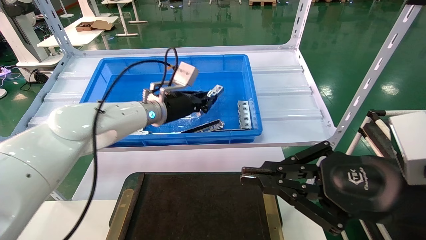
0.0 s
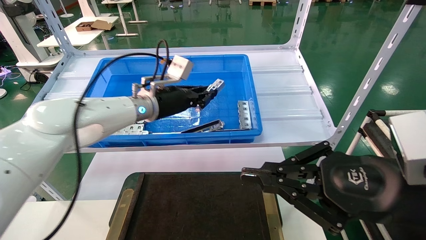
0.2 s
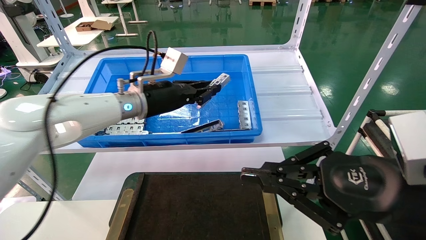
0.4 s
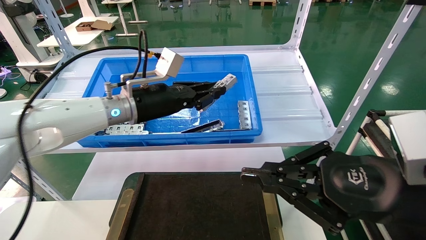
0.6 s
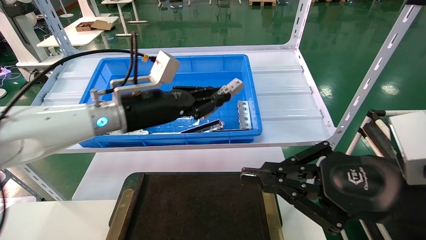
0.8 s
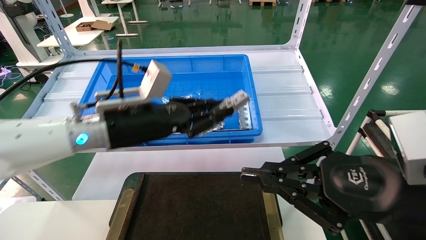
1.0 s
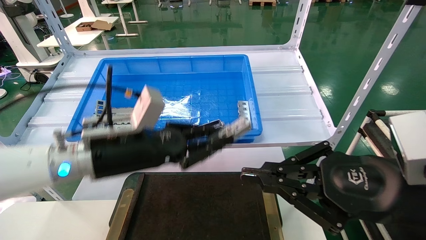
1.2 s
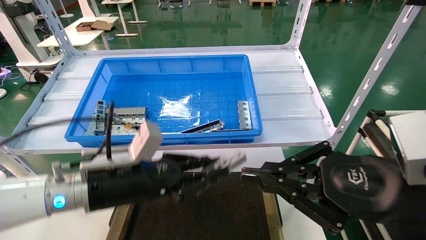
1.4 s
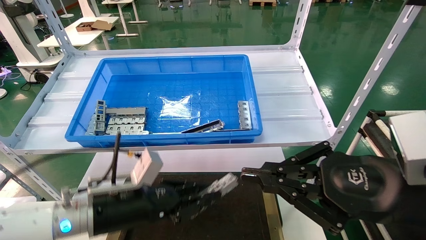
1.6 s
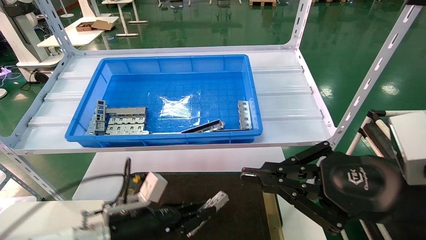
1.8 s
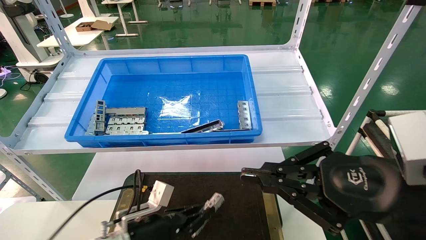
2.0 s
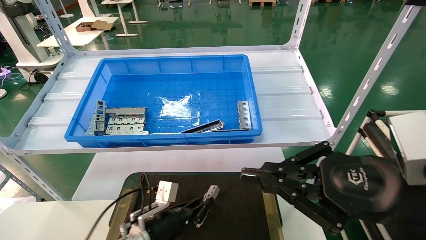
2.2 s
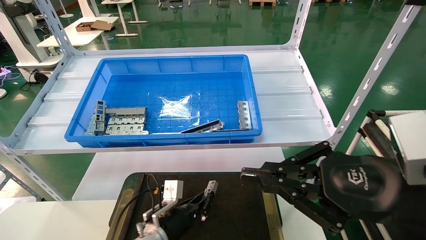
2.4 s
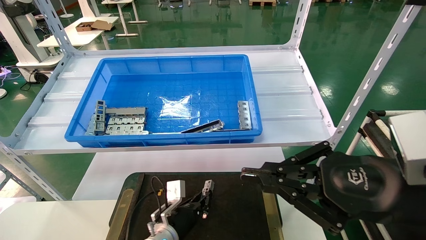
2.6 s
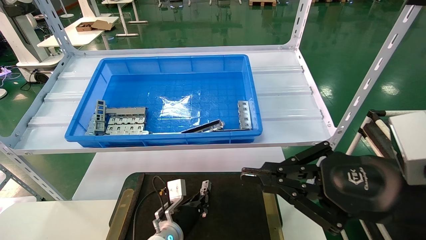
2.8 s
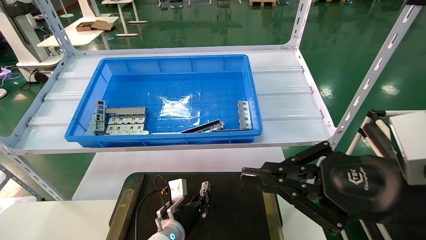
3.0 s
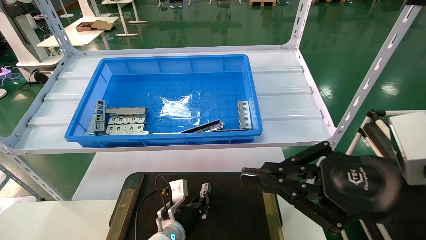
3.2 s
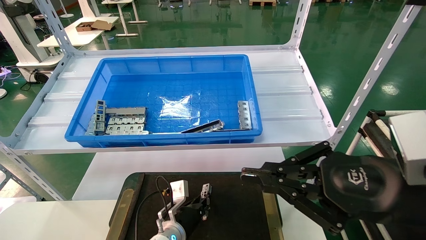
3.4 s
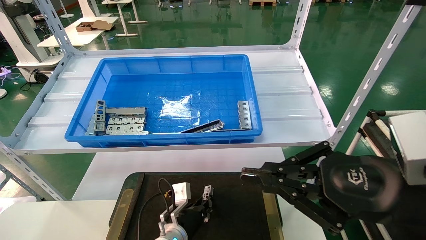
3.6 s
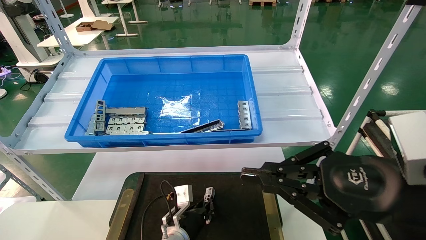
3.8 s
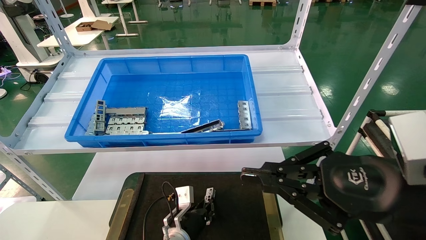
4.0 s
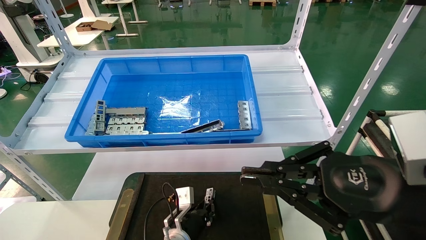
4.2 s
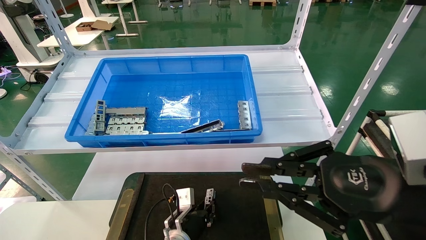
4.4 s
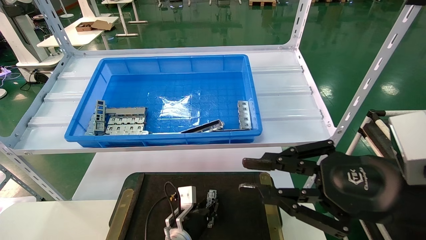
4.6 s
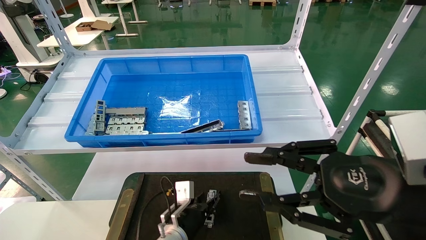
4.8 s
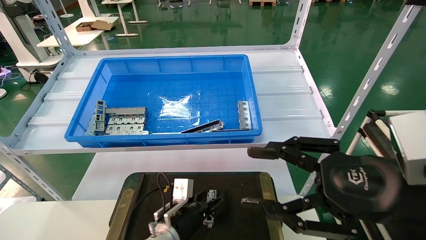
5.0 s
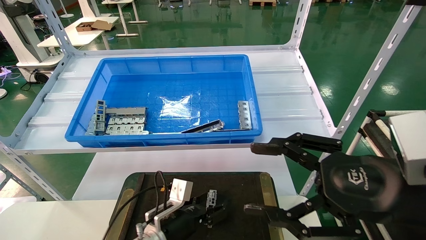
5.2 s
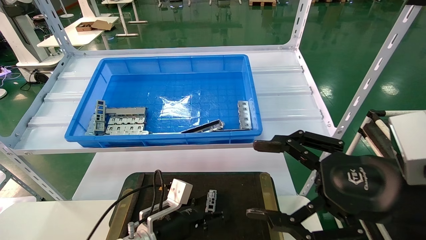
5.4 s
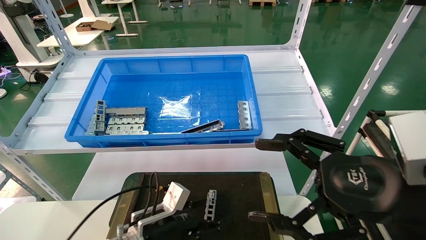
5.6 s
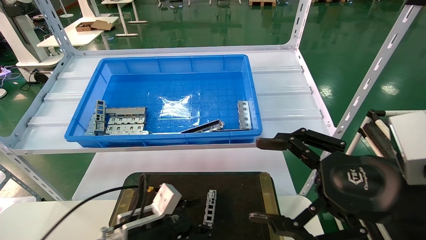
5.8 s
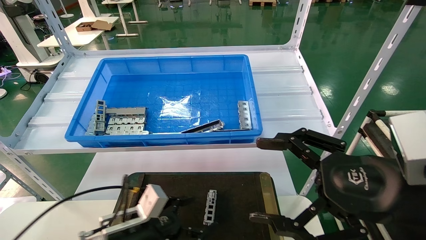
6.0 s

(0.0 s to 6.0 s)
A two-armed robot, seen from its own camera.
Task of the whole recording: Grasp the part with one hand and place it on the black container.
Step, 0.0 s - 4.2 s: Place the front USB bracket into the box.
0.0 s - 1.6 s: The left gripper is displaced backward and downward by some 25 cm.
1.6 s - 3.0 s: The left gripper goes roughly 20 cm downward, forward and to the right.
3.0 s - 4.4 s: There are only small adjustments of the grippers.
4.4 s - 6.0 s: The right gripper opens up. Meanwhile the left gripper goes roughly 20 cm to the left, upward and backward, and opens its fingers.

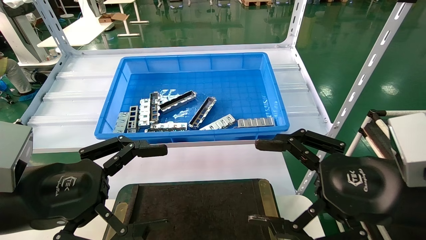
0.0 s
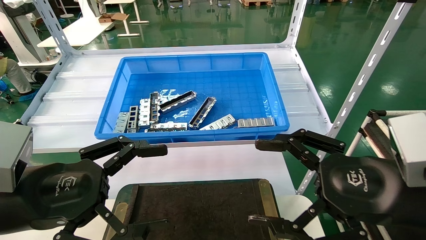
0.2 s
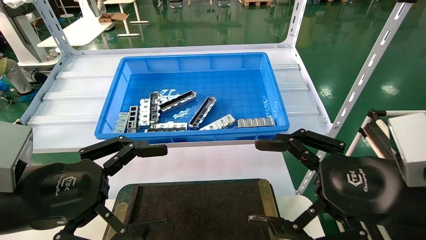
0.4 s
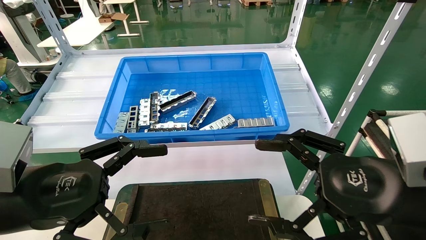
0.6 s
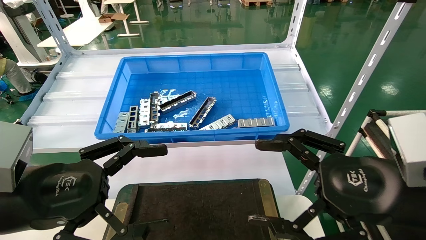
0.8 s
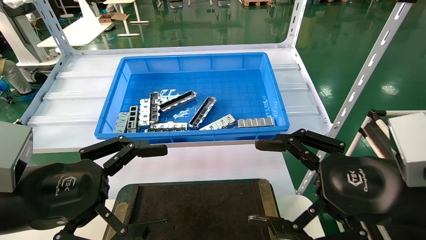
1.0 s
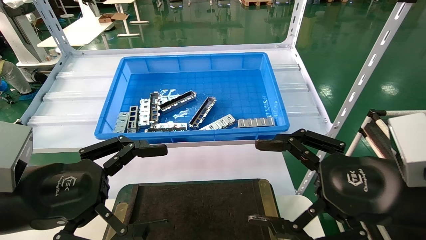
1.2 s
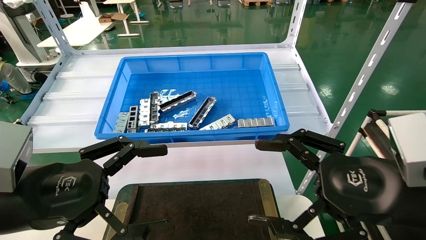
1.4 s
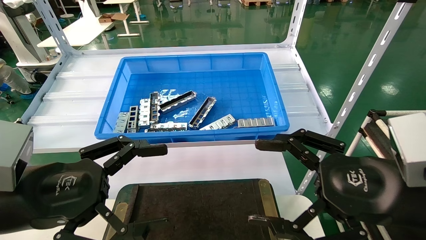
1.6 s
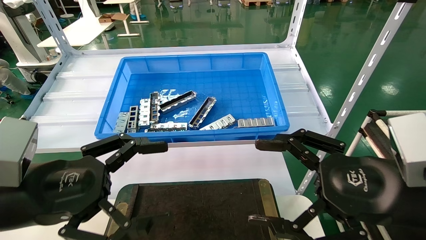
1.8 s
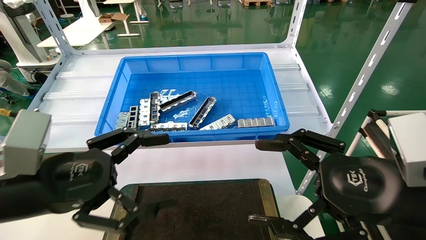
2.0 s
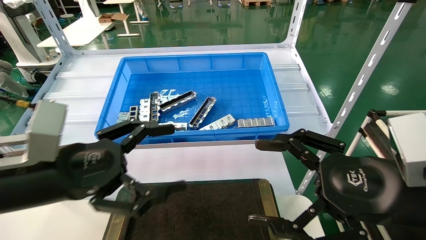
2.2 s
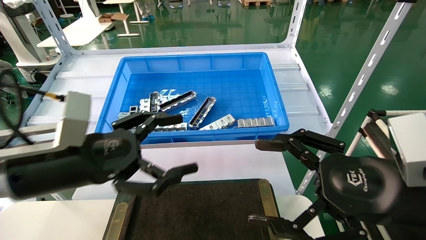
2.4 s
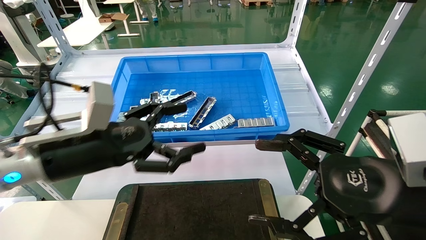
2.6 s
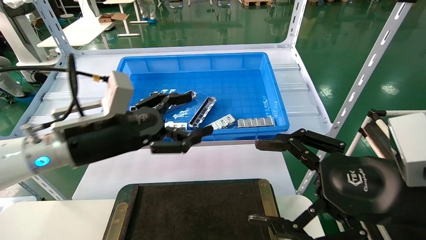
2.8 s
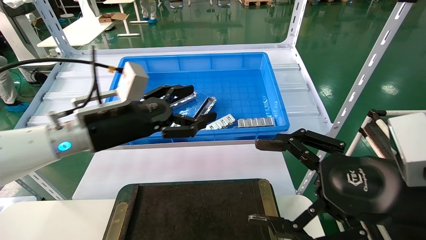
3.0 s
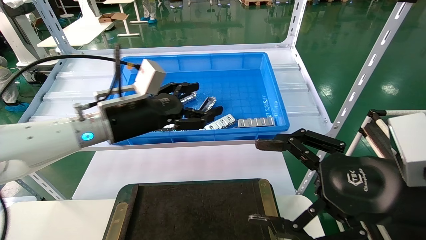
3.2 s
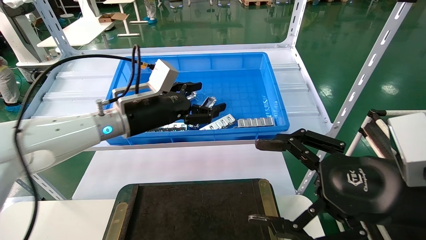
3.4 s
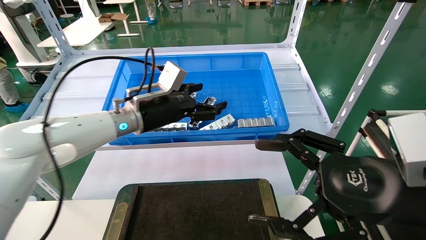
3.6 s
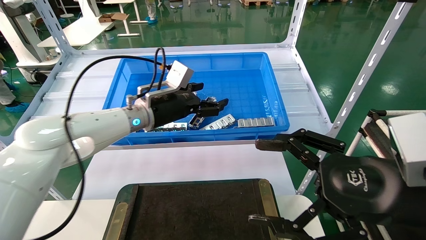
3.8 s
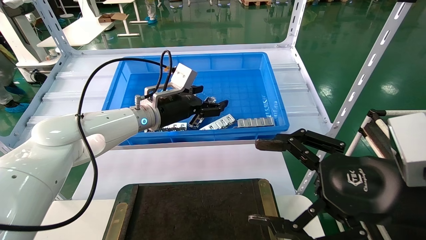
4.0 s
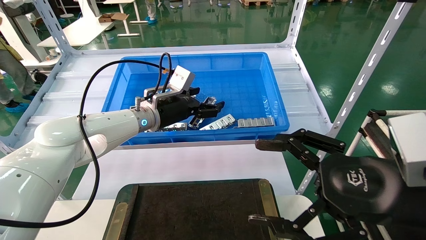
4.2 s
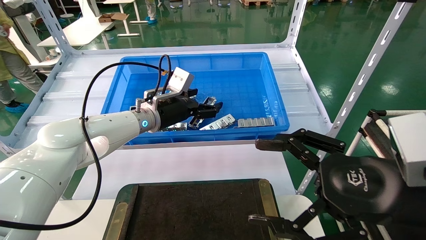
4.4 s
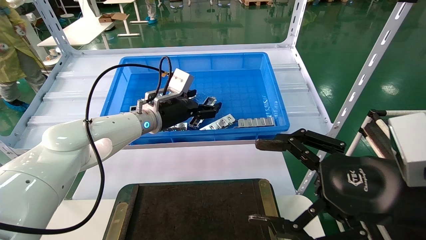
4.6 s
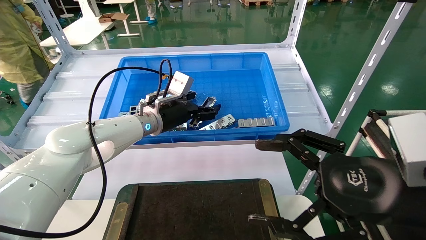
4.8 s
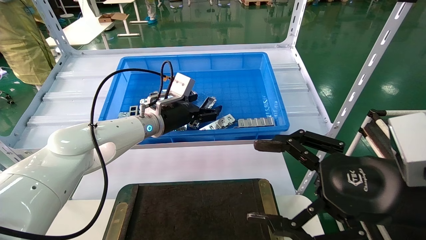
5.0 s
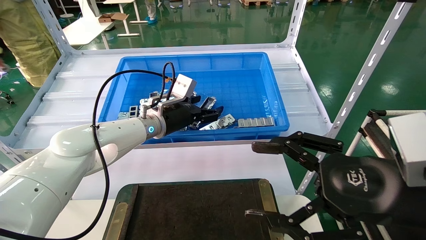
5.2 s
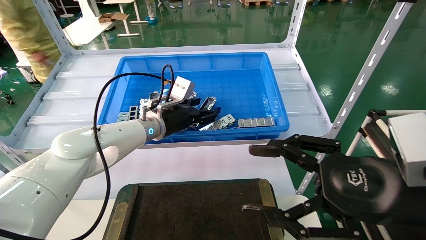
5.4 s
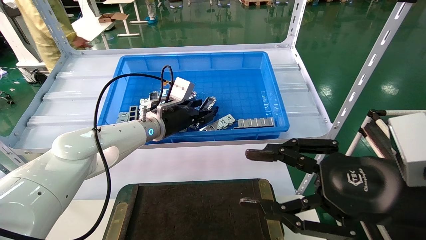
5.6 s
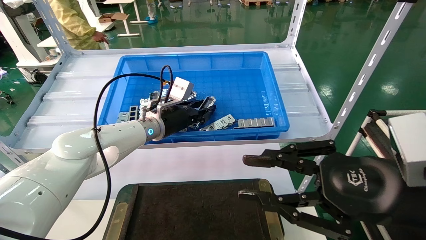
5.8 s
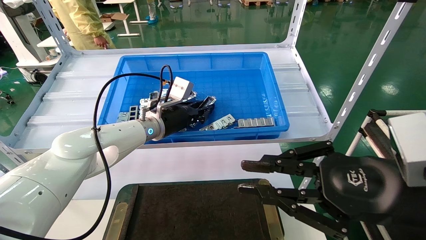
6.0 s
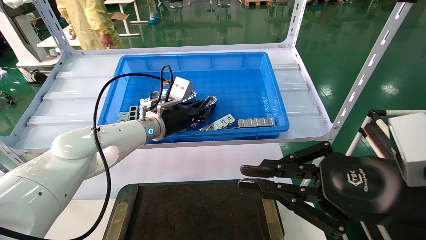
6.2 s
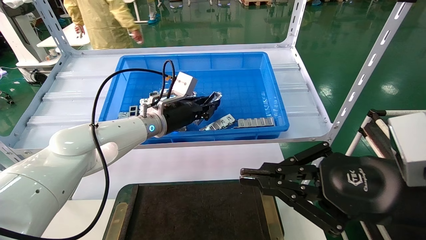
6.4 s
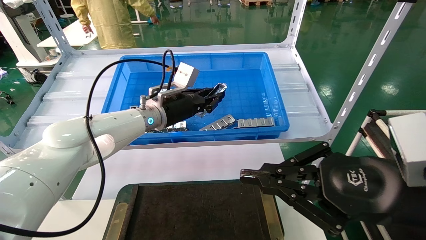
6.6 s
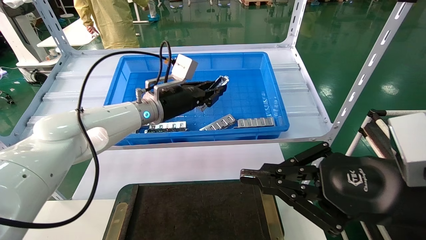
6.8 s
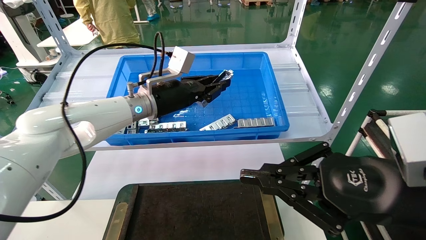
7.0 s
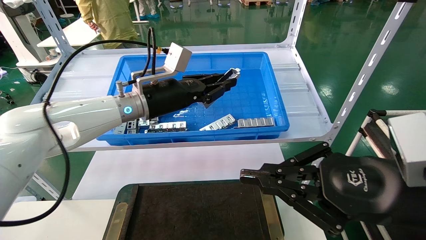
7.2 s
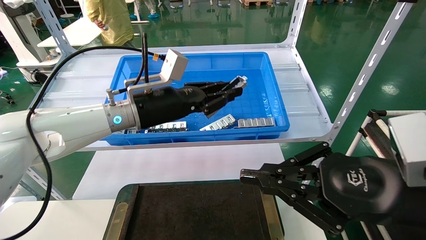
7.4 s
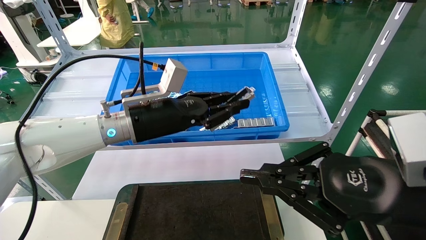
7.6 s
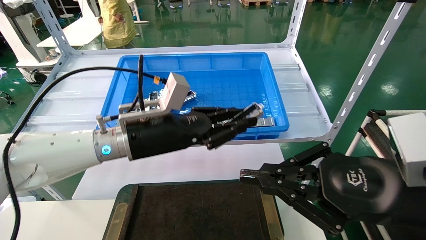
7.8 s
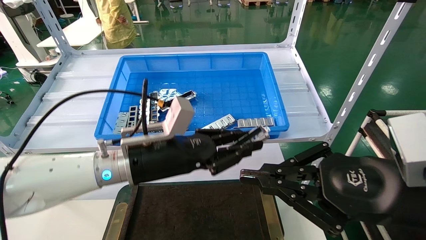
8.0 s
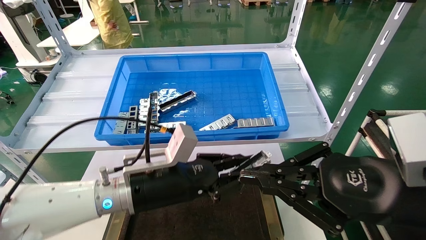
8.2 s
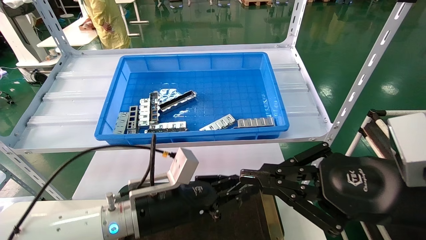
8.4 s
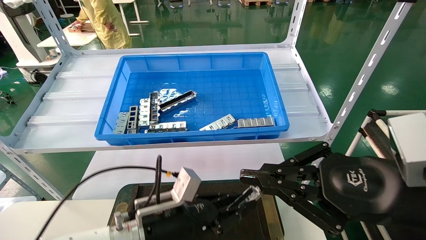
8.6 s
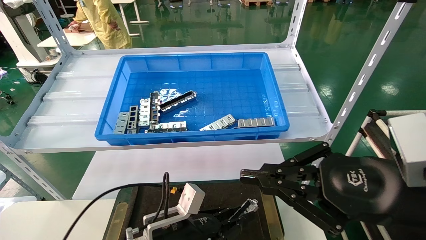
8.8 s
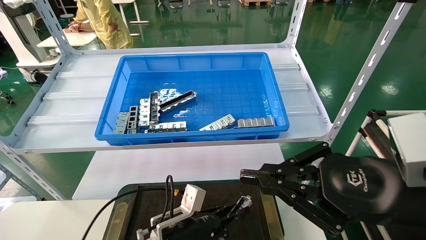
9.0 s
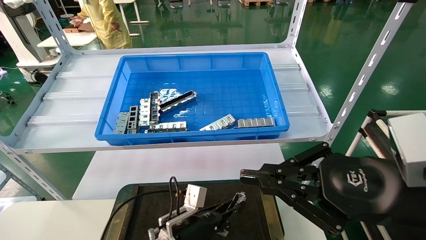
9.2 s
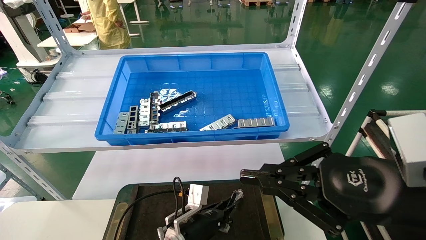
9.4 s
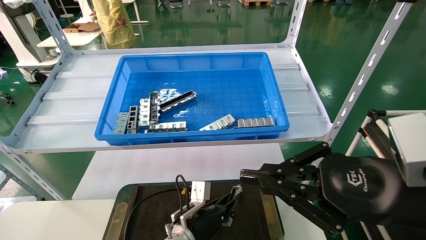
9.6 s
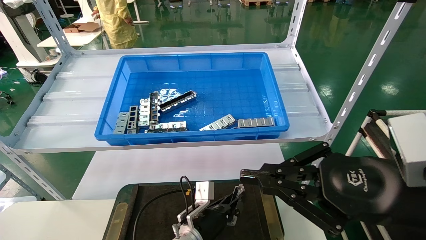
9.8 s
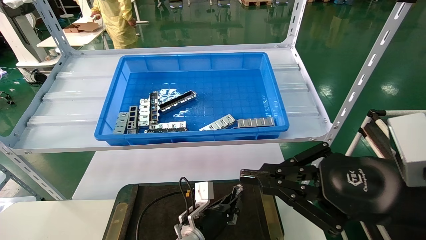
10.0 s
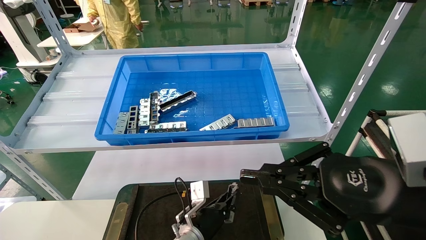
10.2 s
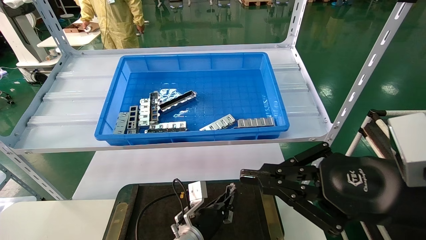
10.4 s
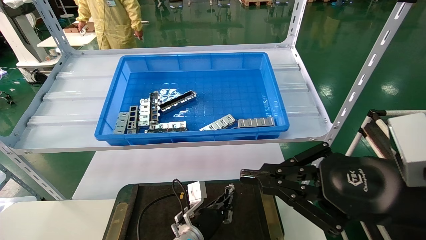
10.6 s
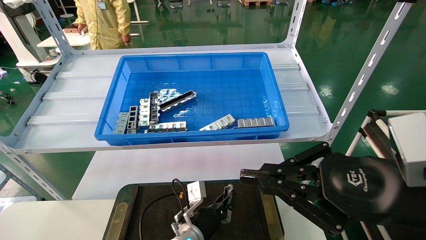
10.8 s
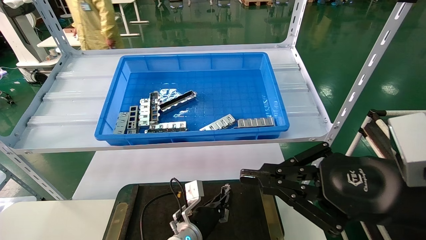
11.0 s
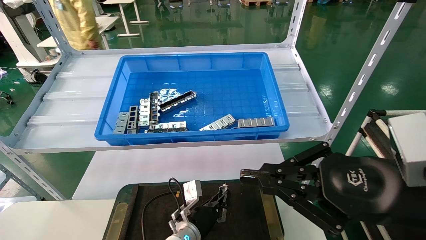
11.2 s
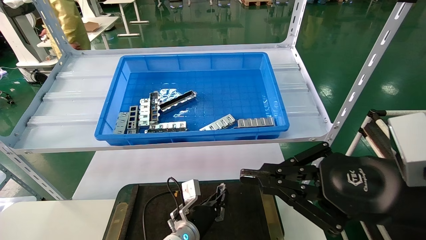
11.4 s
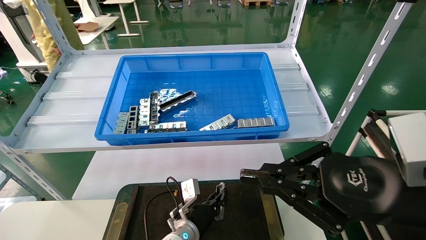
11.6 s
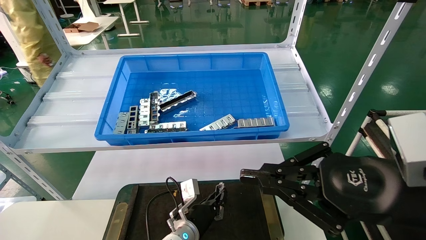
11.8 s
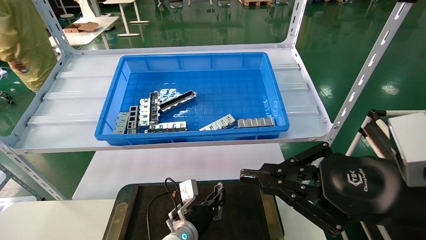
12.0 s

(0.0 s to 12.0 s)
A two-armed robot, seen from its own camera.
Task of the whole recording: Grasp the part with one hand and place it on the black container.
Step, 2.0 s - 5.8 s: Pick up the front USB bracket from the feeding area.
0.0 s - 1.6 s: Neither gripper changes place.
1.6 s - 3.0 s: The left gripper is displaced forward and to the right by some 15 cm.
3.0 s - 4.4 s: The left gripper shifts approximately 15 cm forward and to the right.
4.4 s - 6.0 s: The right gripper closes its fingers; the left gripper closes its fingers.
6.0 s - 7.6 s: The left gripper travels backward by some 10 cm.
7.6 s - 9.0 s: The left gripper is displaced downward by roughly 25 cm.
9.0 s - 10.4 s: The left gripper heads forward, to the right and downward, covering roughly 10 cm.
10.4 s - 12.0 s: The grippers stay close to where they were, moving slightly.
